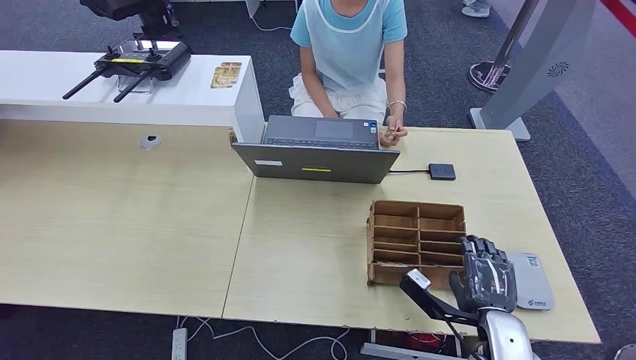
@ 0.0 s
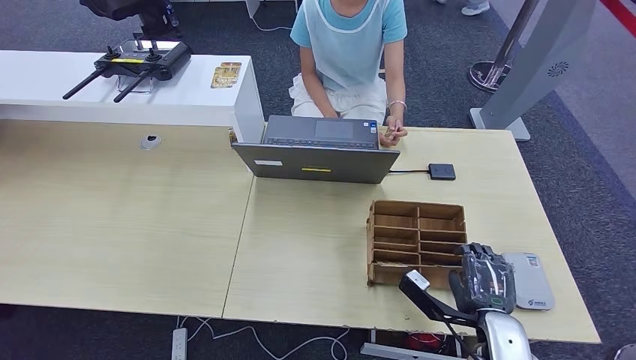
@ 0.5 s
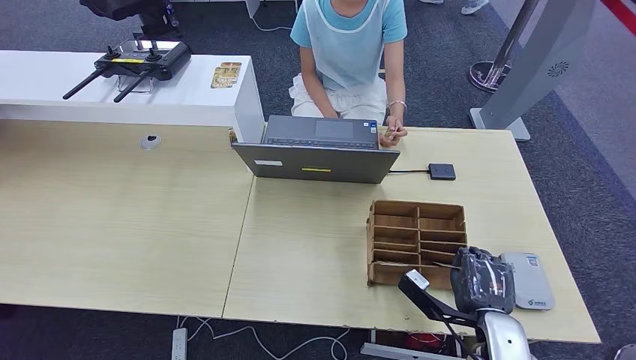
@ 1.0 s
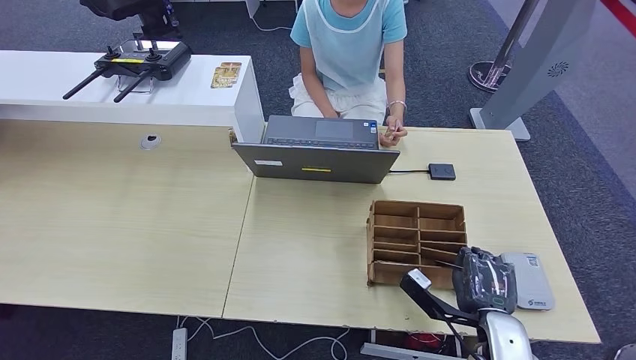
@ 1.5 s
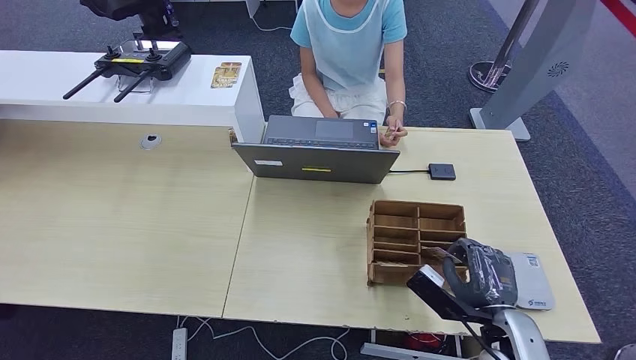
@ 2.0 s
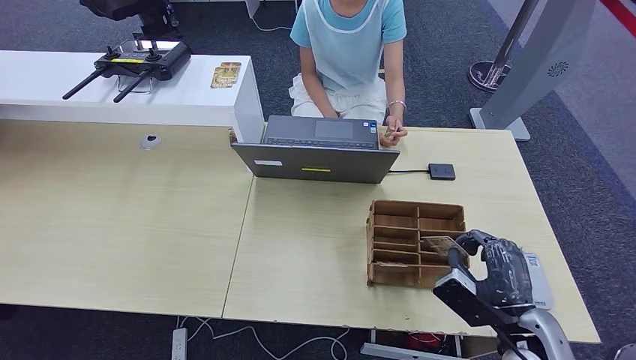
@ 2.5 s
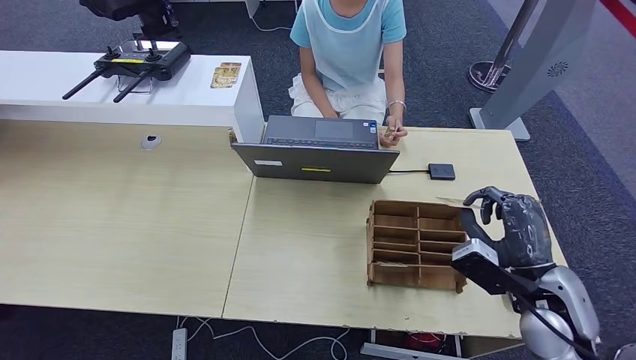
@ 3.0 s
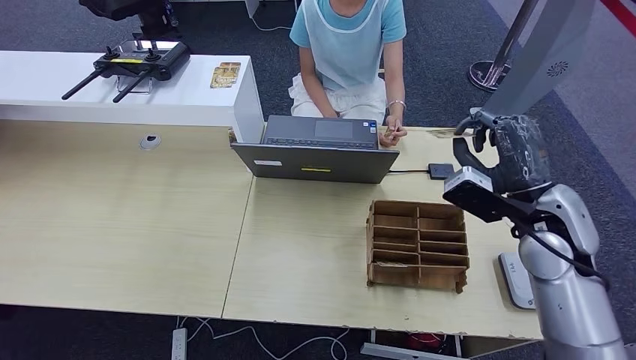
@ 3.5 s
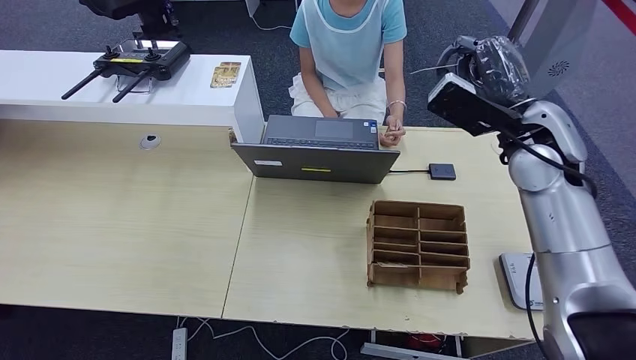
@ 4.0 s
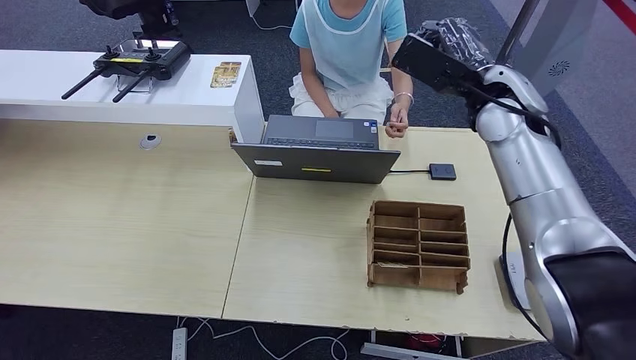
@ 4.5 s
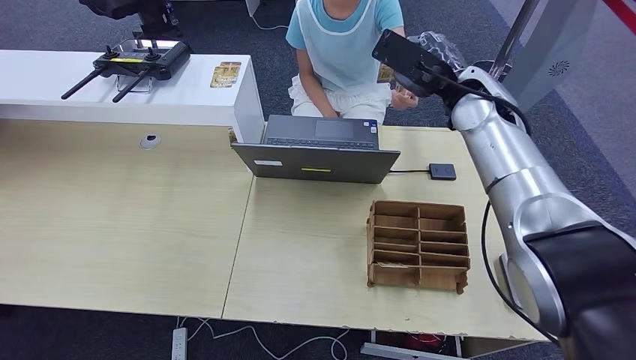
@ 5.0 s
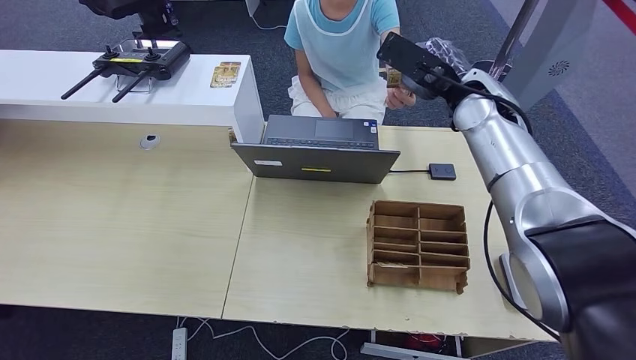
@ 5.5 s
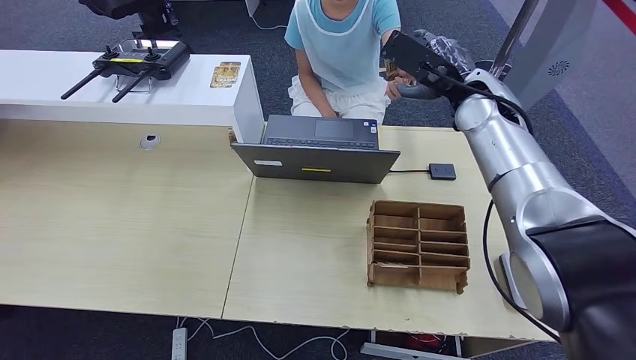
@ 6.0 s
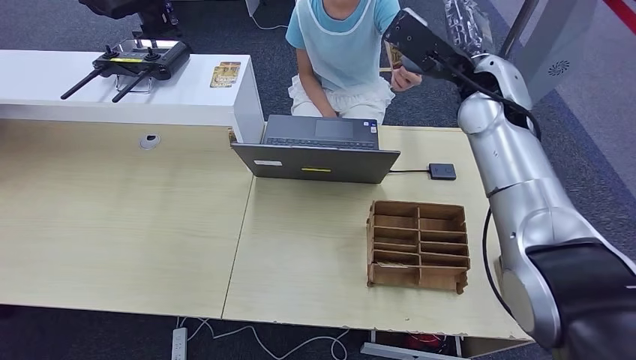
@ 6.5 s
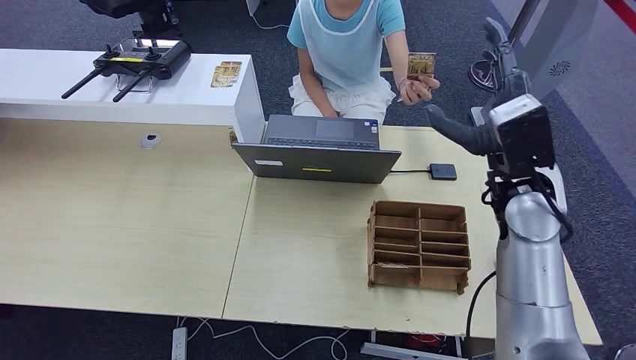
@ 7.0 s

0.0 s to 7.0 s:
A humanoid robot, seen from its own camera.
Step, 0.0 to 3.0 s: Pick up the room key from the key card box.
Step, 3.5 to 7.0 s: Hand the room key to the person.
2.0 to 3.5 s: The right hand moves upward and forward, approximately 20 cm.
3.5 to 5.0 s: The right hand moves forward, upward and to the left, about 20 cm.
5.0 to 7.0 s: The right hand goes about 15 cm backward and downward.

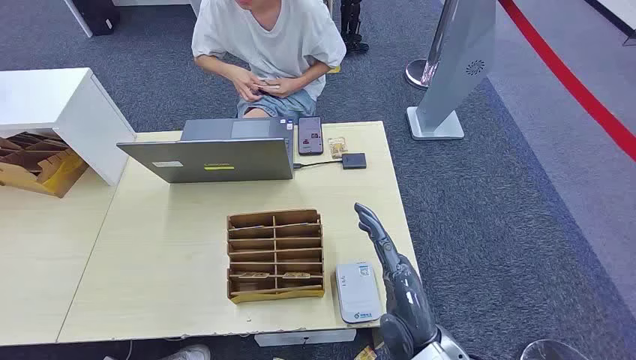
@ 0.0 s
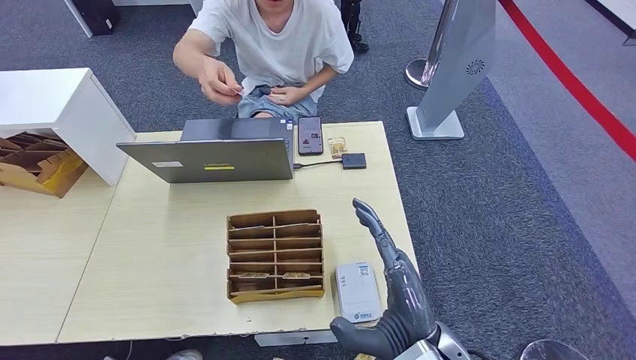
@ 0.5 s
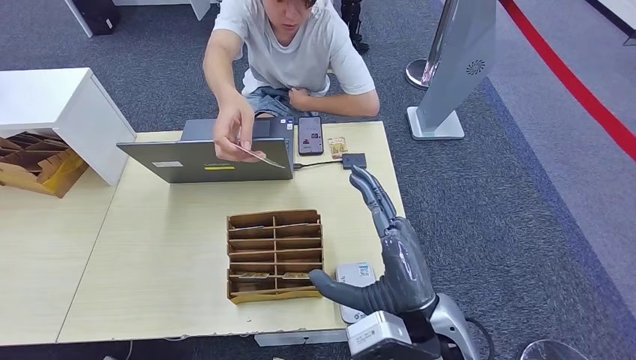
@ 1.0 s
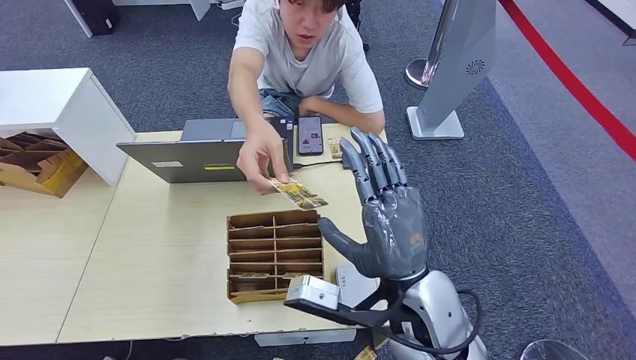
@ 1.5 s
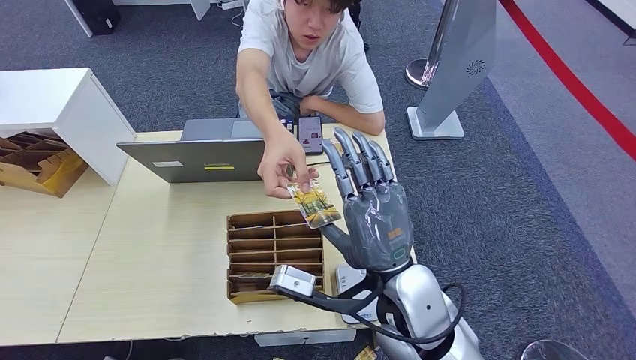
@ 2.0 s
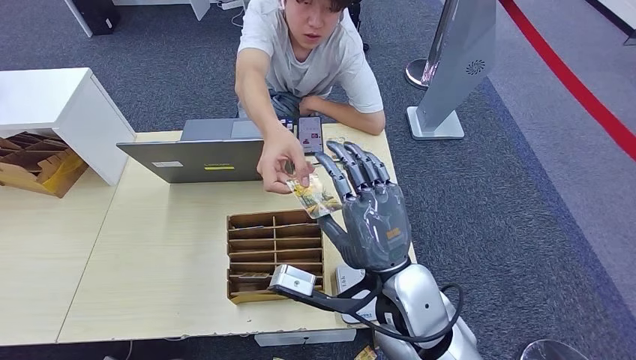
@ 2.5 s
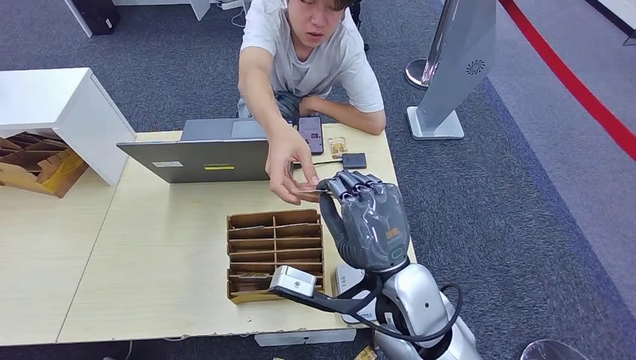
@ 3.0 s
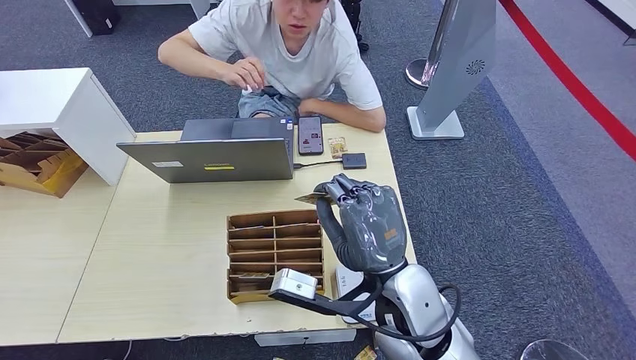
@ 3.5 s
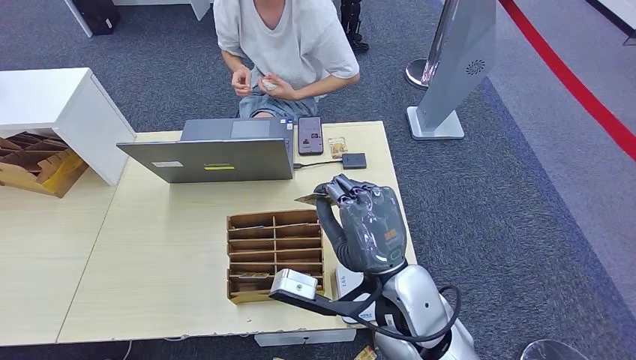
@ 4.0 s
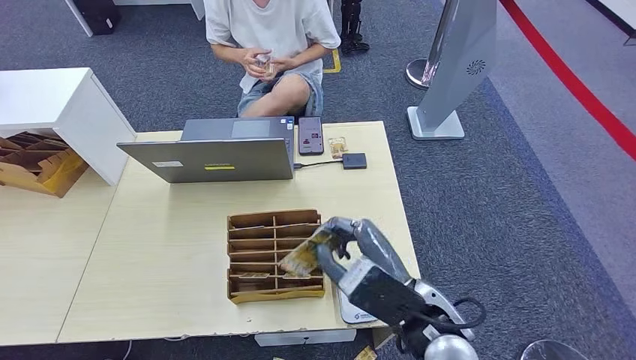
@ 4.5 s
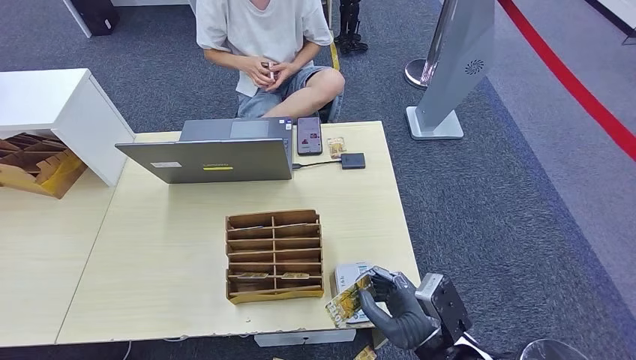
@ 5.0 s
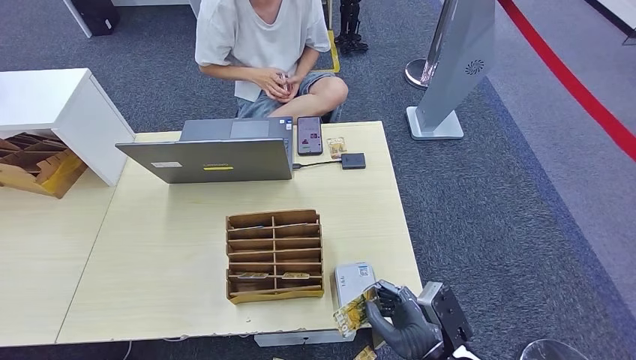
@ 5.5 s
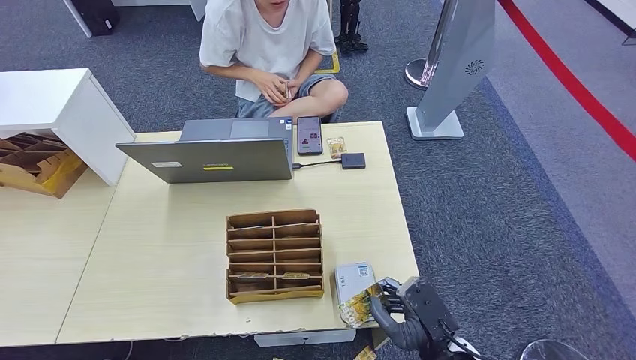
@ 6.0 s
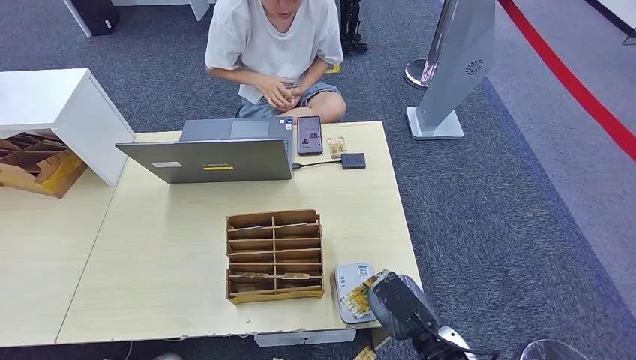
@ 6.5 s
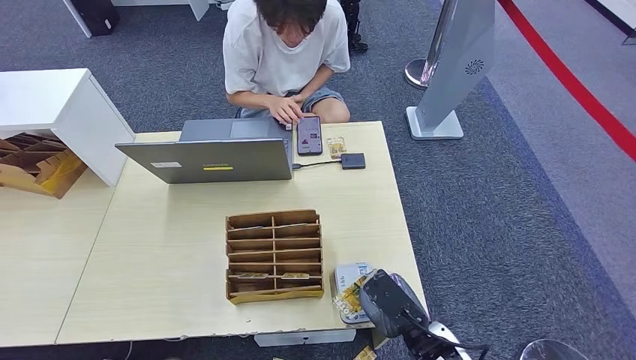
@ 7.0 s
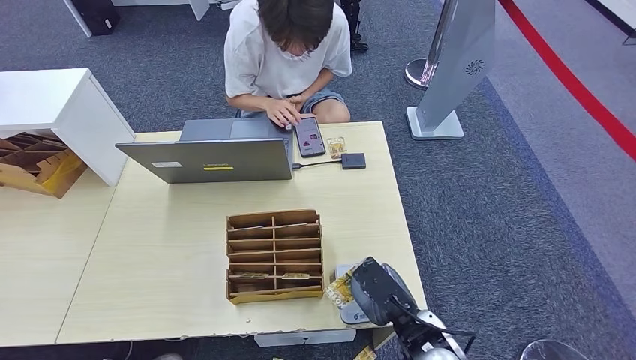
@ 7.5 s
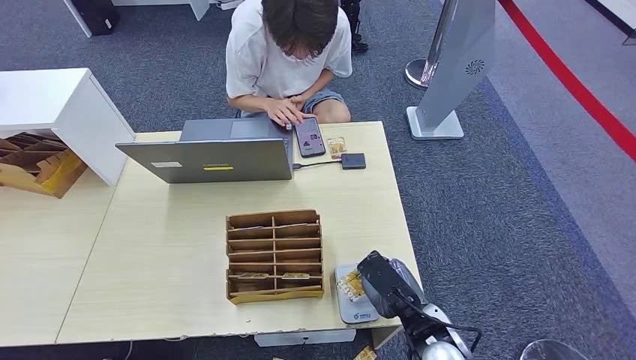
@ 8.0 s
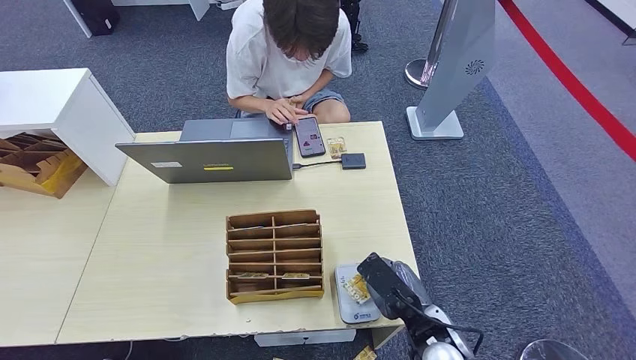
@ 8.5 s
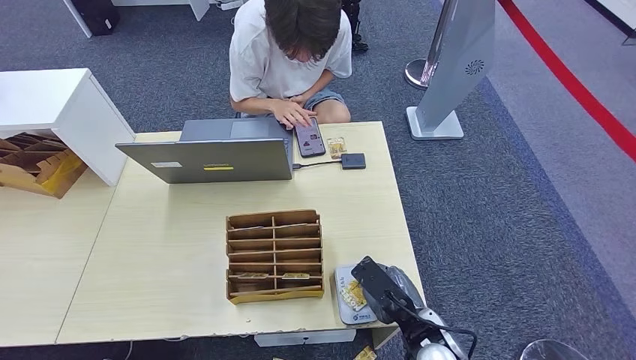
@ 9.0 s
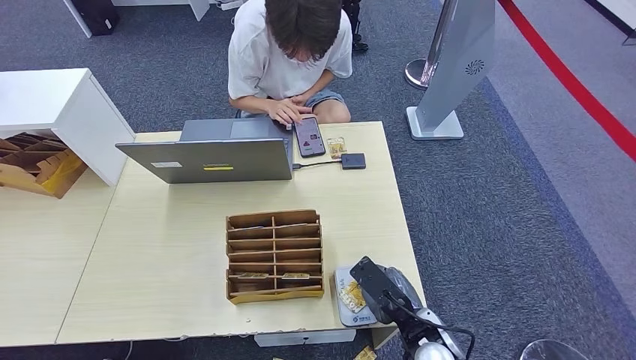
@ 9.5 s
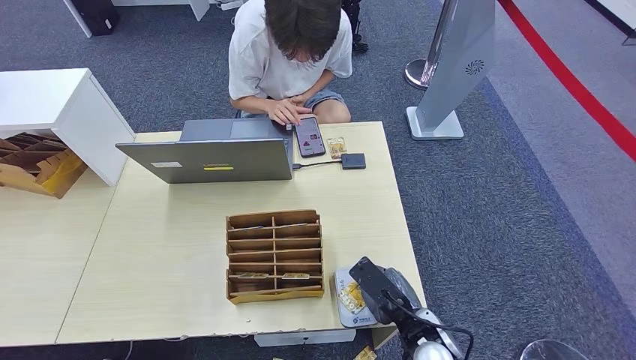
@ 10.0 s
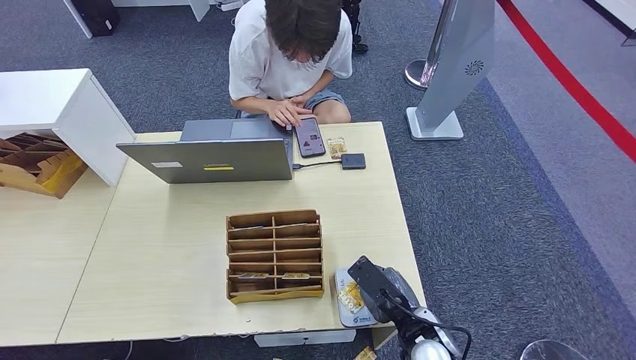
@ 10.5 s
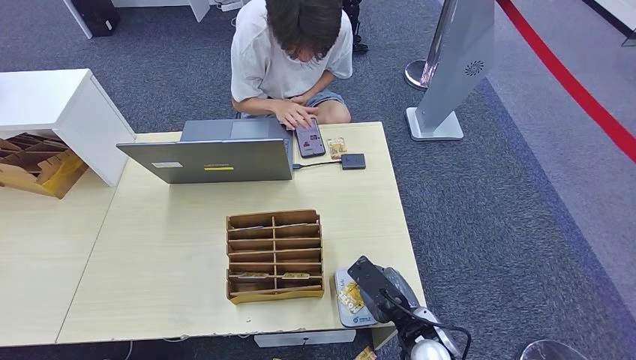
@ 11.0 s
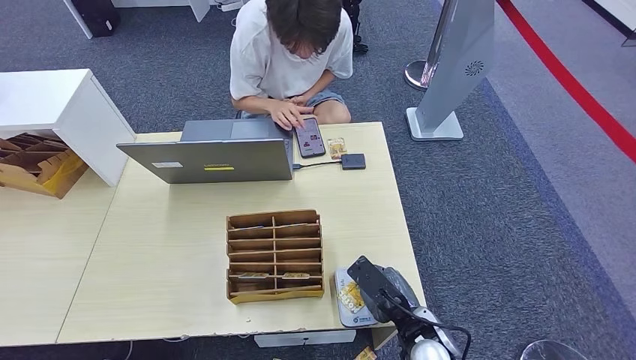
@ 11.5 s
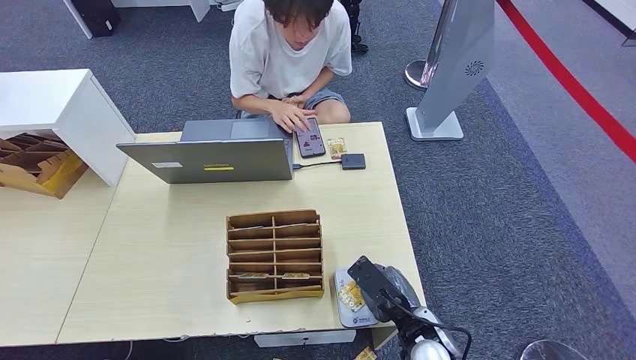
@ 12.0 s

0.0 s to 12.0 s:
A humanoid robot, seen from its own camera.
Step, 0.0 to 3.0 s: Take the ID card from the person's hand.
Step, 3.5 to 8.5 s: Place the ID card on the card reader.
2.0 to 4.0 s: The hands make only small movements.
4.0 to 6.0 s: The right hand heads downward, to the right and backward, covering some 20 cm.
6.0 to 8.0 s: The right hand shifts approximately 5 cm forward.
8.0 to 10.0 s: There are only small adjustments of the hands.
10.0 to 12.0 s: Both hands stay about where they are.

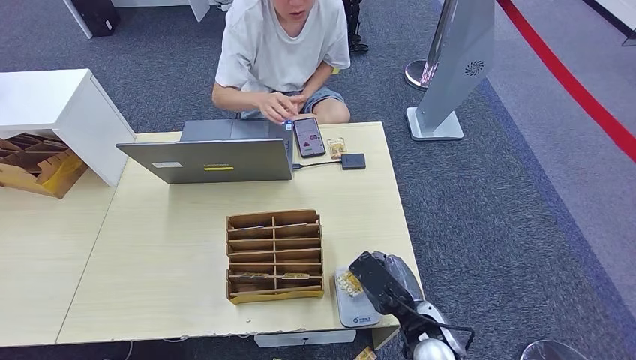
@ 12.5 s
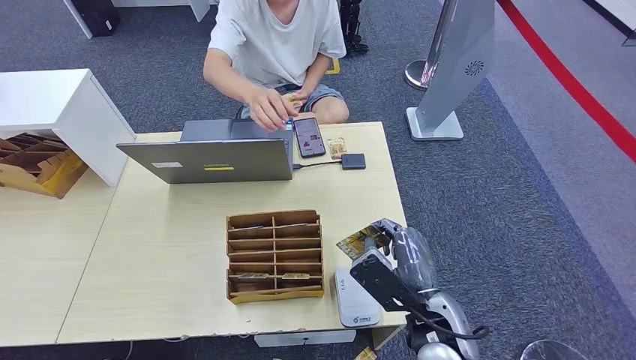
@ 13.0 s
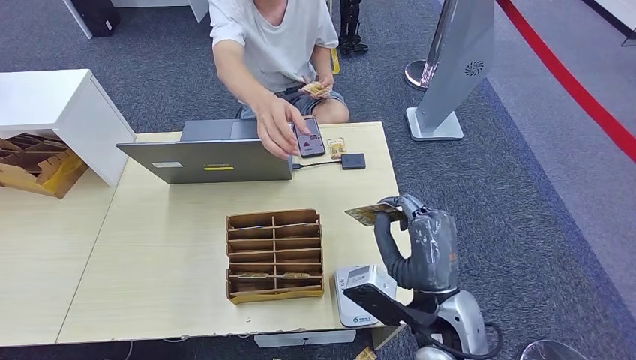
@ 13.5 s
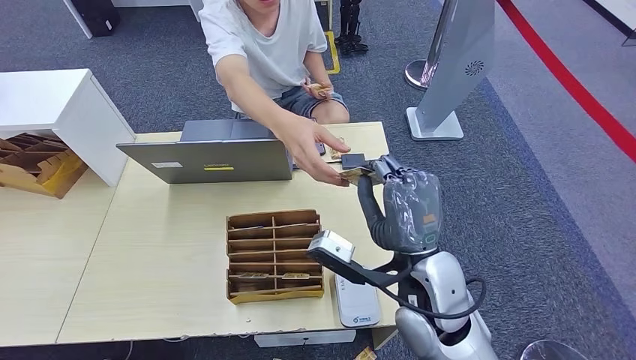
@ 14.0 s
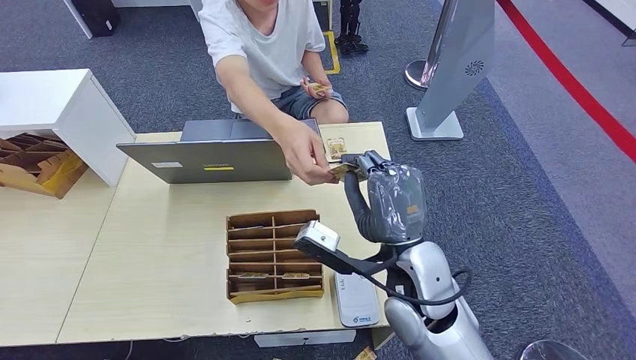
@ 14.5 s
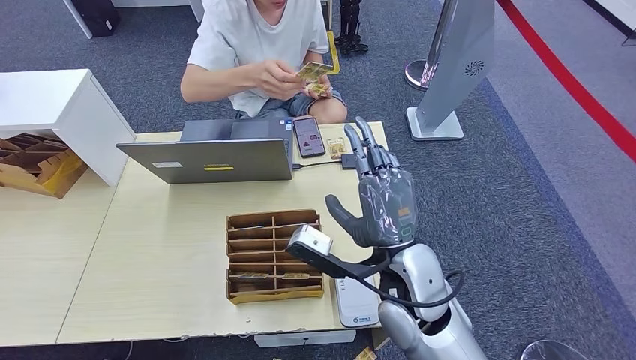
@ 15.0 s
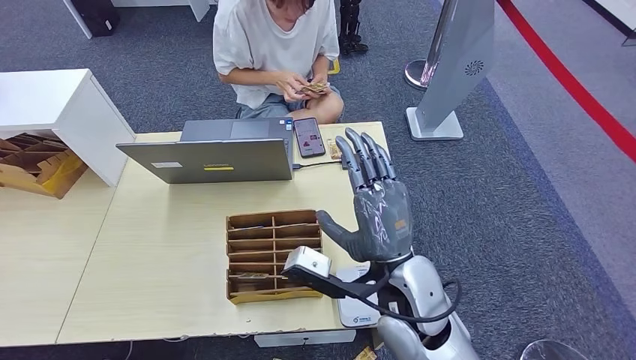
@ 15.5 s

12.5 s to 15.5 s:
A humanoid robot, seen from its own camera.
12.5 to 14.0 s: The right hand travels upward by roughly 15 cm.
14.0 to 15.5 s: The hands move only a little.
